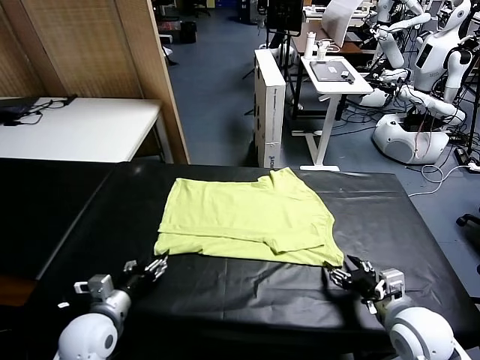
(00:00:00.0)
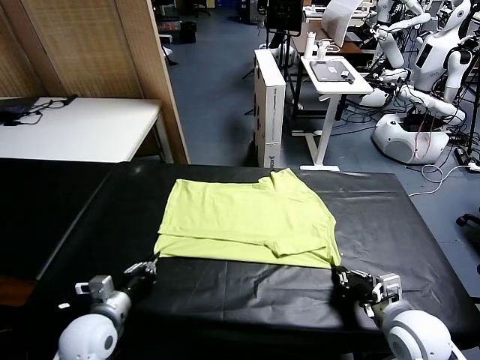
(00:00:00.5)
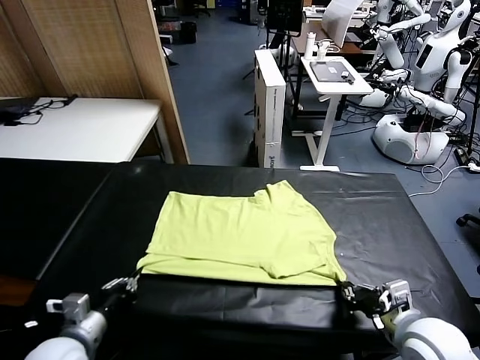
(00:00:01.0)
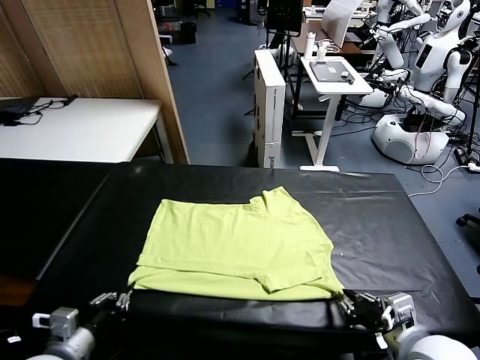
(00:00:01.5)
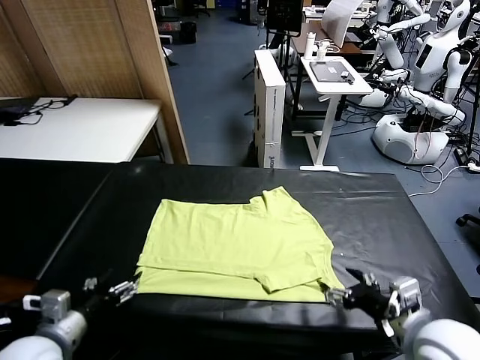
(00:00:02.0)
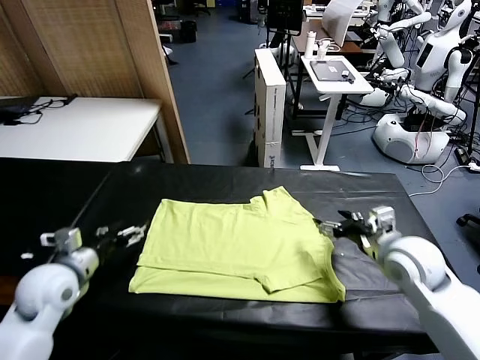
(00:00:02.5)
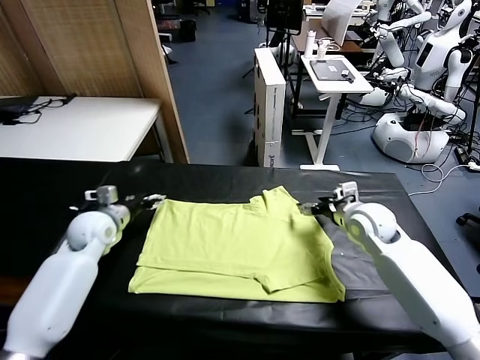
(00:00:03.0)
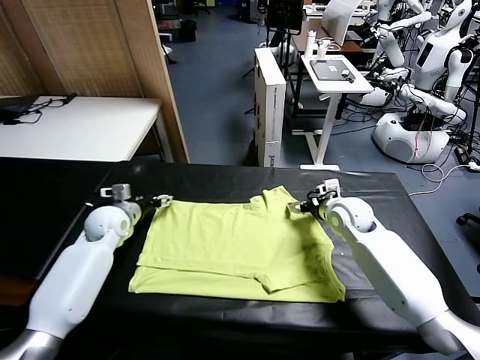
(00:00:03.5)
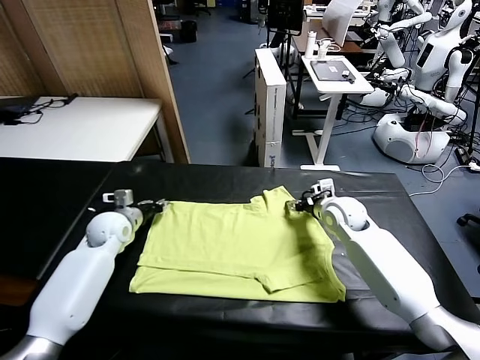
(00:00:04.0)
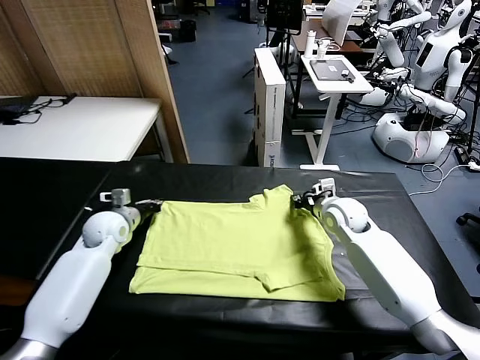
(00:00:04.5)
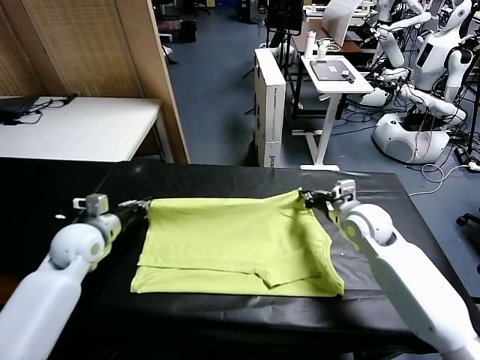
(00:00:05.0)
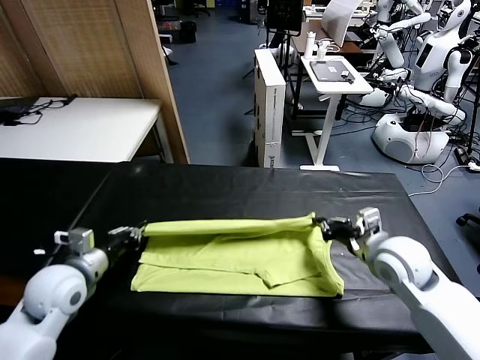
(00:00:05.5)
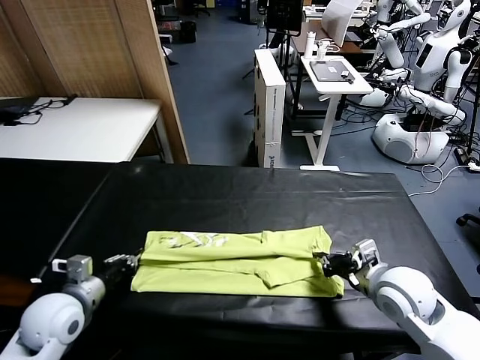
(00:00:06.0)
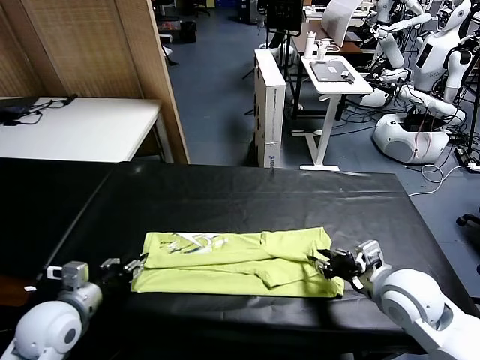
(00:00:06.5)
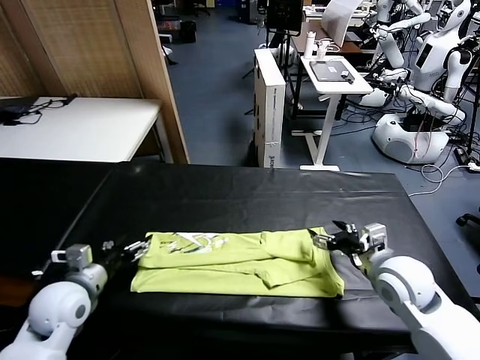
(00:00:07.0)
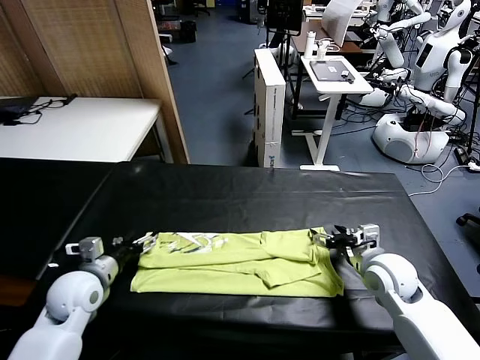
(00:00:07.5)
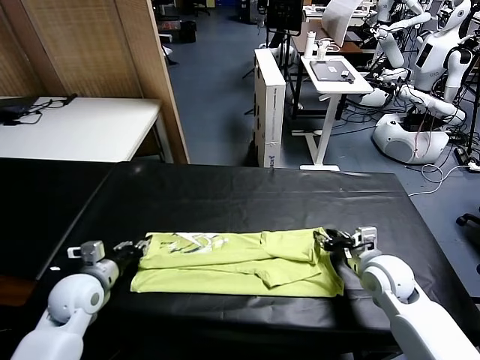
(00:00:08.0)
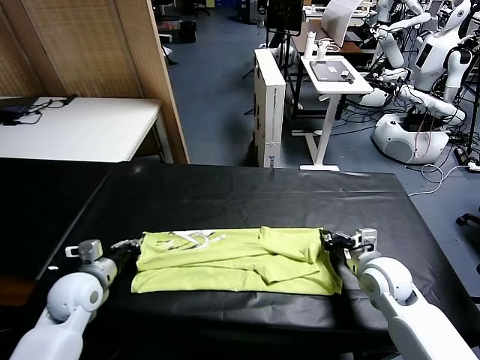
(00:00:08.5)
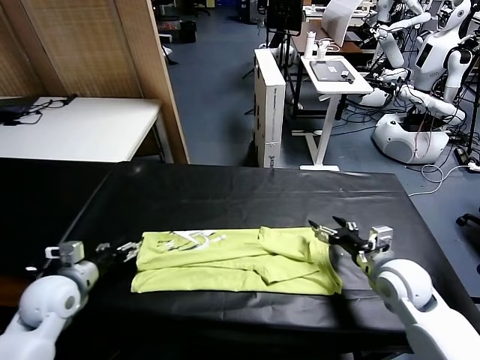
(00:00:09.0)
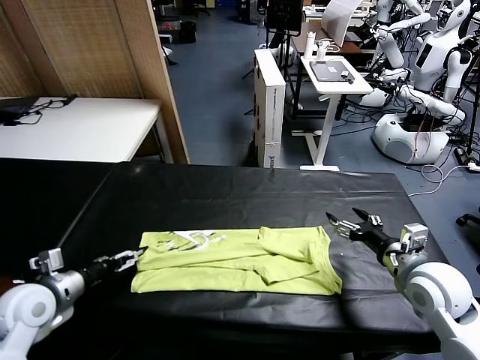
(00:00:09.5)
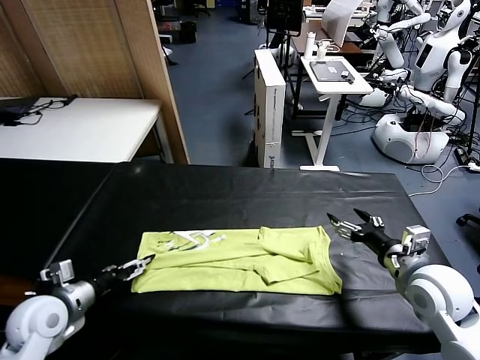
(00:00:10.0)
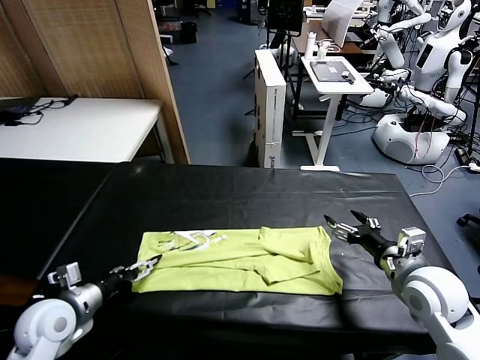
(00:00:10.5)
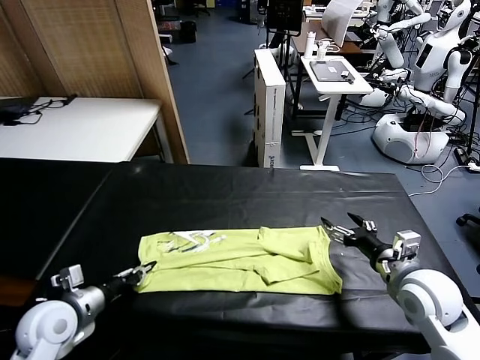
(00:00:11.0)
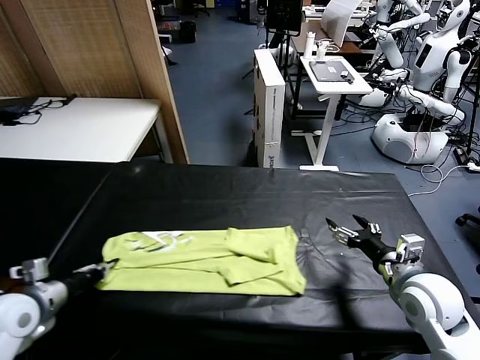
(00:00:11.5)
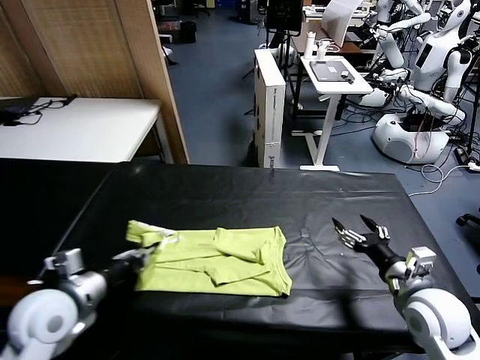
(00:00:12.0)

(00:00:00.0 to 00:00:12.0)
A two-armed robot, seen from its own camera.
Task of the whole recording: fold and organize the clothes.
Step, 00:00:00.0 - 00:00:01.5: Drag the clothes downward with both gripper.
Step, 00:00:02.0 - 00:00:04.0: use both grippers simultaneously to clamp the upper edge of the clothing fabric.
Step, 00:00:04.5 - 00:00:06.5: use both grippers to drag the upper edge of the fabric backward and fold it over the lower edge.
Step, 00:00:07.0 - 00:00:11.0: use the left gripper to clamp the left edge of the fabric.
00:00:00.0 - 00:00:02.0: The left gripper travels upward and backward by some 10 cm, and closes, then opens again, while the right gripper travels upward by approximately 10 cm, and opens its fingers.
00:00:02.0 - 00:00:04.0: The two grippers go about 25 cm forward. The right gripper closes its fingers, while the left gripper closes its fingers.
00:00:04.0 - 00:00:06.0: The grippers both shift backward by about 20 cm.
00:00:06.0 - 00:00:08.0: The right gripper shifts roughly 10 cm forward and downward, and opens, then closes again, while the left gripper shifts roughly 5 cm forward, and opens, then closes again.
00:00:08.0 - 00:00:10.0: The right gripper shifts approximately 10 cm upward and backward, and opens, while the left gripper goes approximately 5 cm backward, and opens.
00:00:10.0 - 00:00:12.0: The right gripper moves backward, roughly 5 cm. Meanwhile the left gripper is displaced to the right and upward by about 10 cm, and closes its fingers.

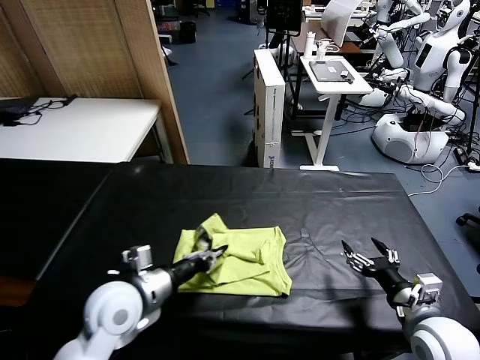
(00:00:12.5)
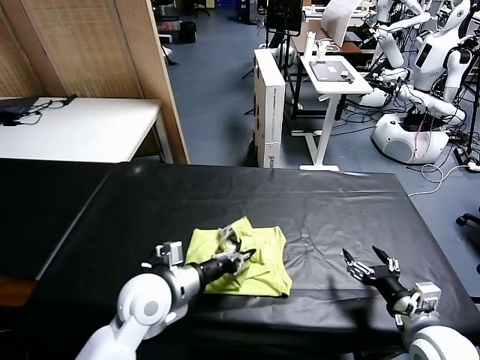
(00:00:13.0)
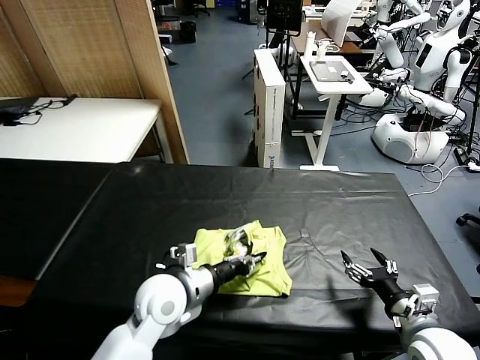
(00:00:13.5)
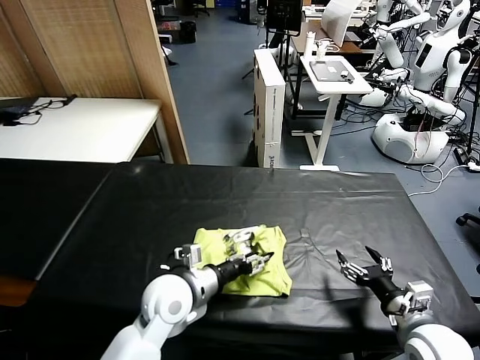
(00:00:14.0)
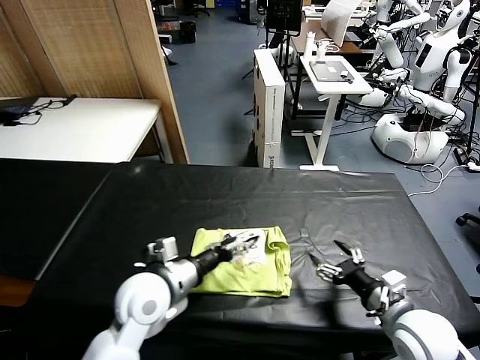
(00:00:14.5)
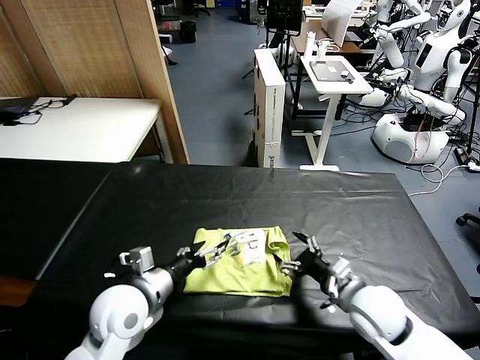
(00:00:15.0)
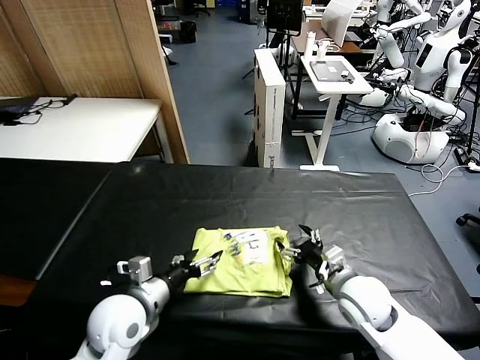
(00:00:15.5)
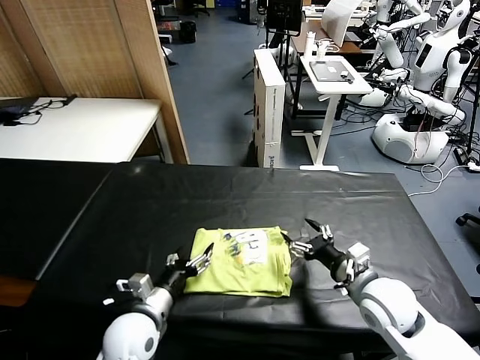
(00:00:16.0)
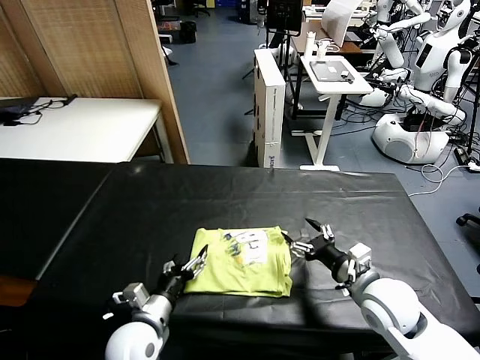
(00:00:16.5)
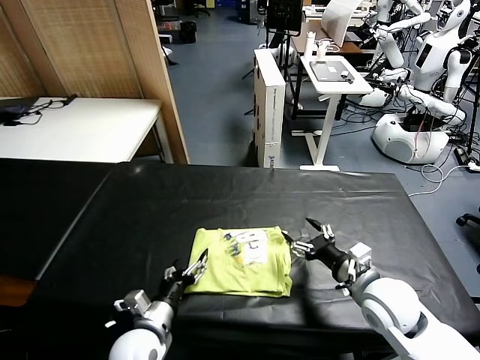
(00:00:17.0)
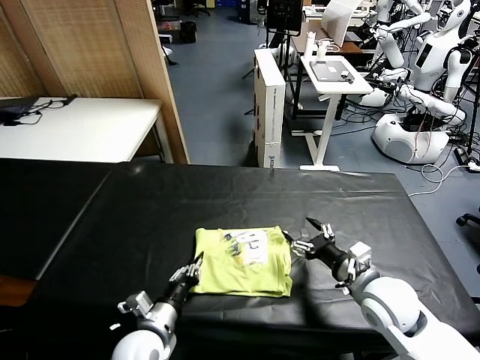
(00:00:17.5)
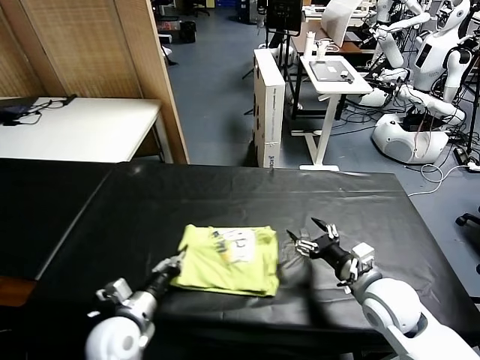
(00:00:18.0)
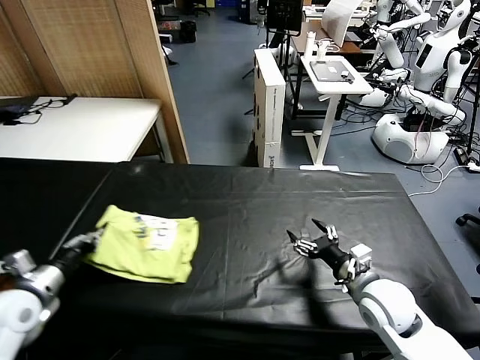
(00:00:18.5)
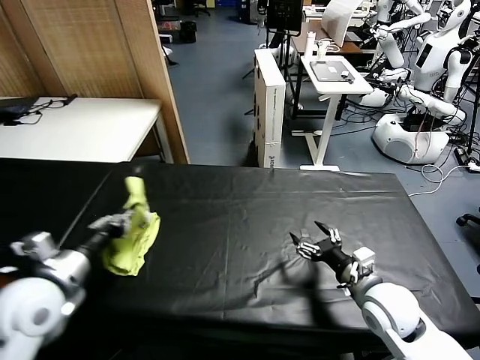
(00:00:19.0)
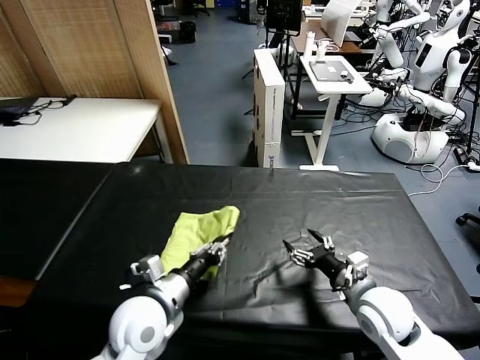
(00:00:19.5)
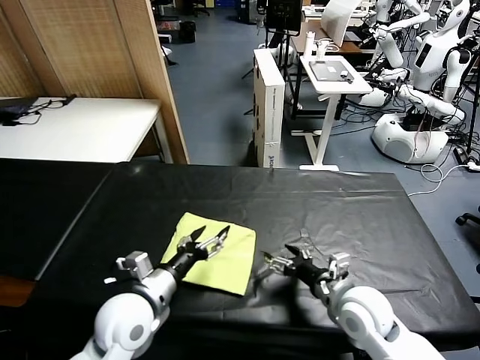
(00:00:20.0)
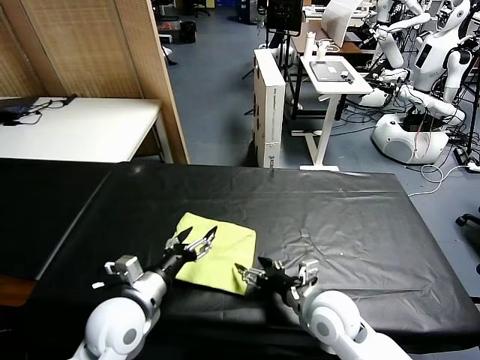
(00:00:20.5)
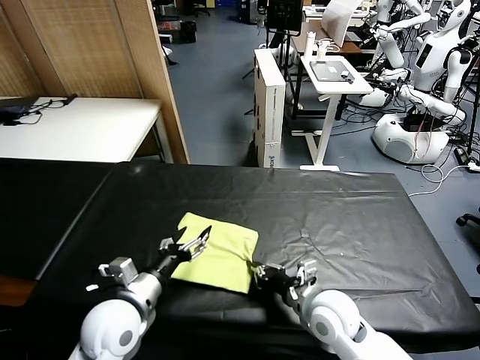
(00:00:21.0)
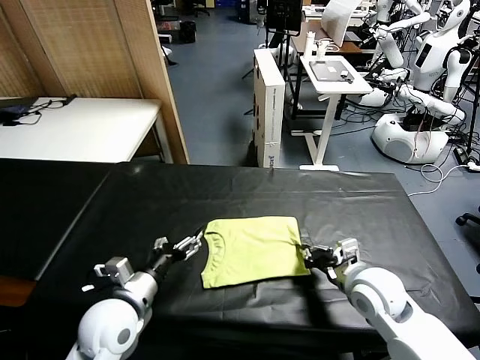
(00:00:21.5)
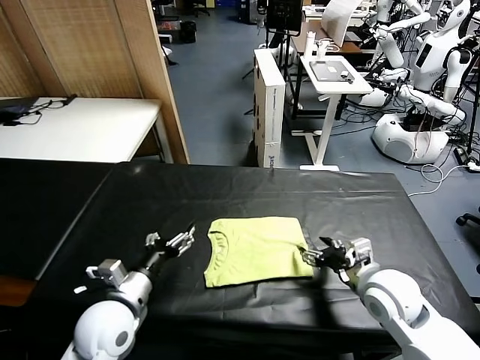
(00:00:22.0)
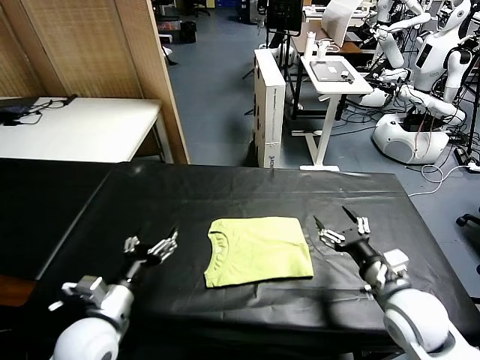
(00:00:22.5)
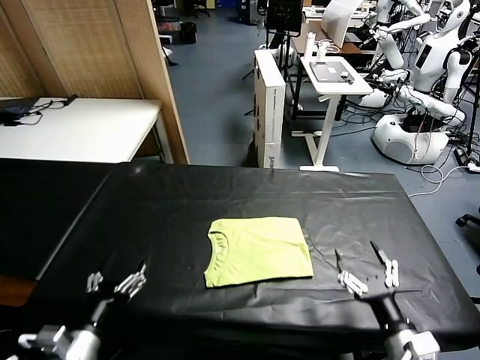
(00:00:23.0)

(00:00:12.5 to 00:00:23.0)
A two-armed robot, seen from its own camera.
Task of the whole recording: fold and organize the clothes.
Step, 00:00:15.0 - 00:00:19.5: Flip the folded clothes over with left gripper.
Step, 00:00:20.0 - 00:00:21.5: Drag the clothes to the center of the table.
00:00:12.5 - 00:00:14.5: The right gripper goes some 5 cm to the left. The left gripper opens.
00:00:14.5 - 00:00:16.5: The left gripper travels downward and backward by approximately 10 cm.
00:00:16.5 - 00:00:19.0: The left gripper heads upward, covering about 15 cm, reaches some 25 cm to the left, then returns, and closes up.
00:00:19.0 - 00:00:21.0: The left gripper shifts about 5 cm downward, and opens up, while the right gripper heads to the left, covering some 10 cm, and closes up.
00:00:21.0 - 00:00:23.0: The left gripper moves backward and to the left, some 15 cm. Meanwhile the right gripper goes about 20 cm backward and to the right, and opens up.
